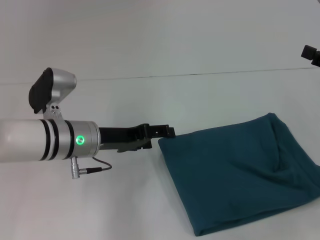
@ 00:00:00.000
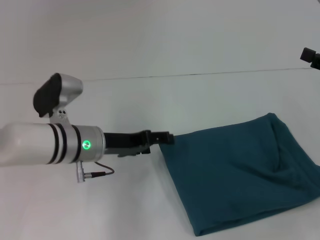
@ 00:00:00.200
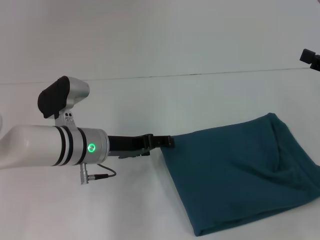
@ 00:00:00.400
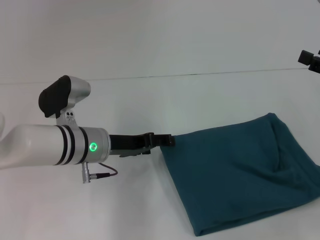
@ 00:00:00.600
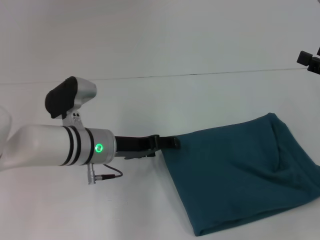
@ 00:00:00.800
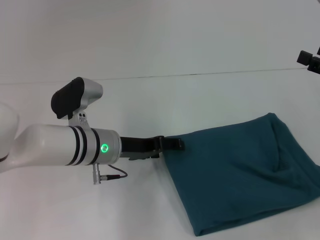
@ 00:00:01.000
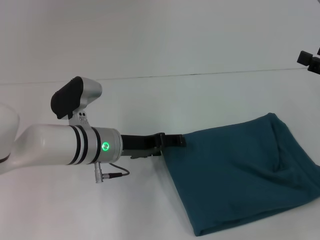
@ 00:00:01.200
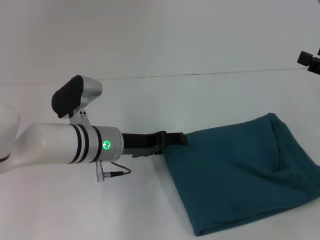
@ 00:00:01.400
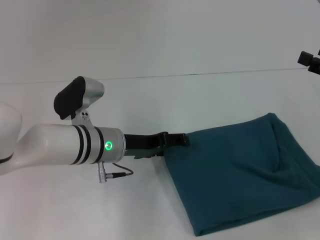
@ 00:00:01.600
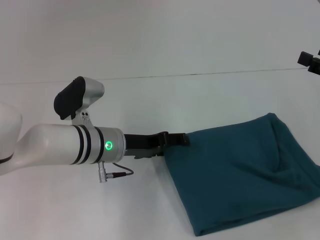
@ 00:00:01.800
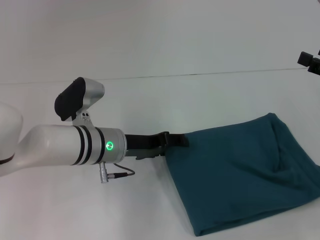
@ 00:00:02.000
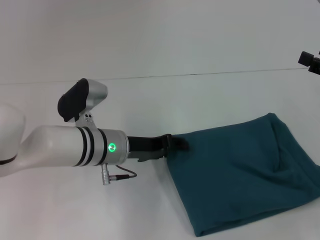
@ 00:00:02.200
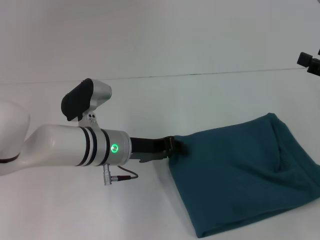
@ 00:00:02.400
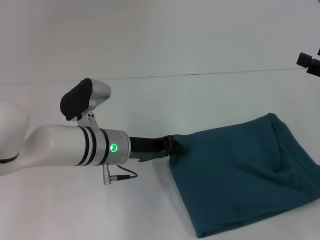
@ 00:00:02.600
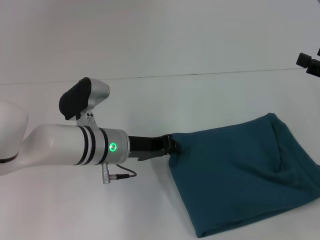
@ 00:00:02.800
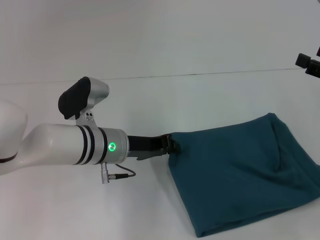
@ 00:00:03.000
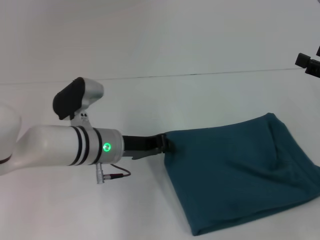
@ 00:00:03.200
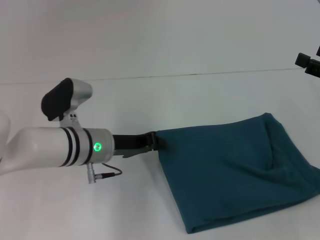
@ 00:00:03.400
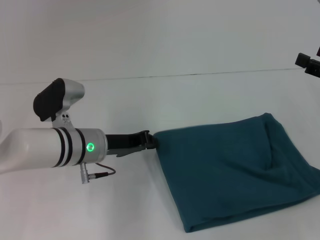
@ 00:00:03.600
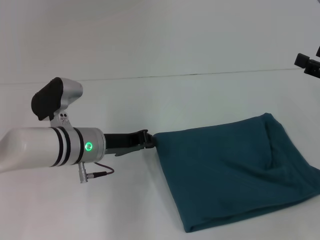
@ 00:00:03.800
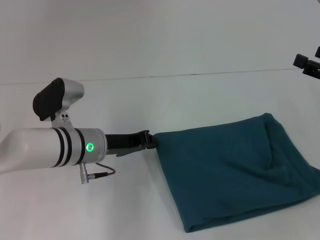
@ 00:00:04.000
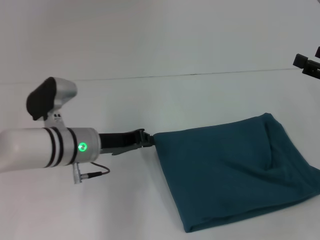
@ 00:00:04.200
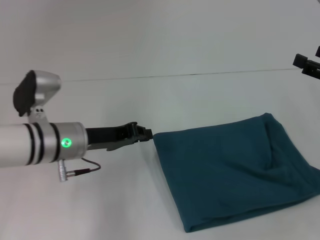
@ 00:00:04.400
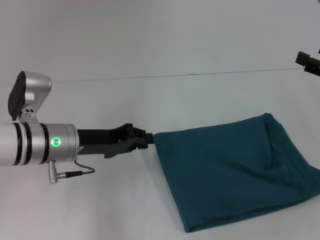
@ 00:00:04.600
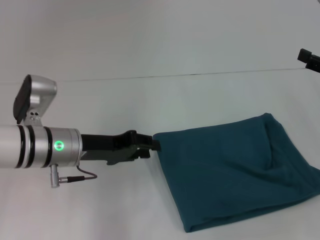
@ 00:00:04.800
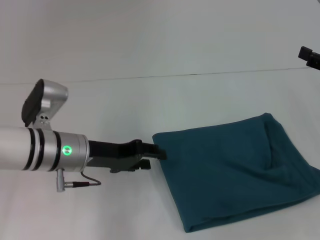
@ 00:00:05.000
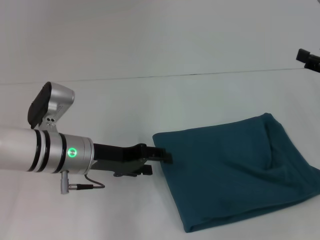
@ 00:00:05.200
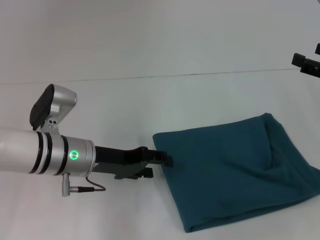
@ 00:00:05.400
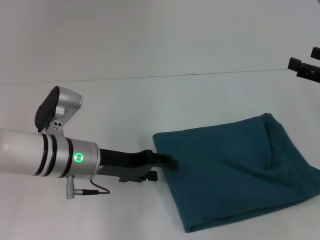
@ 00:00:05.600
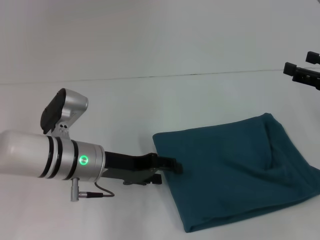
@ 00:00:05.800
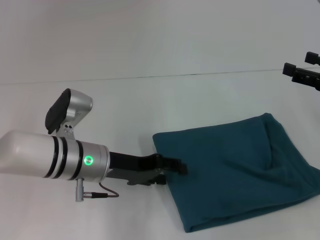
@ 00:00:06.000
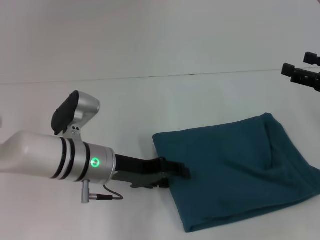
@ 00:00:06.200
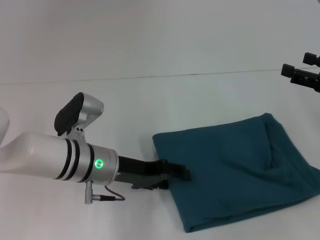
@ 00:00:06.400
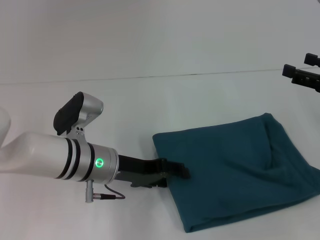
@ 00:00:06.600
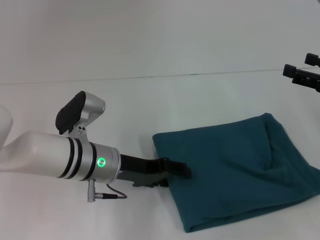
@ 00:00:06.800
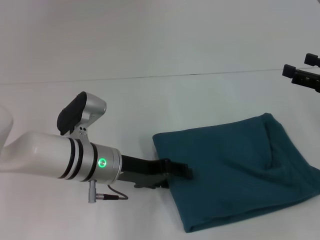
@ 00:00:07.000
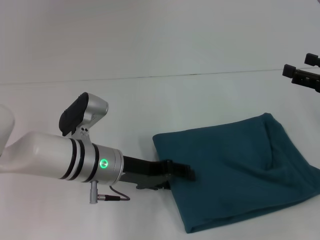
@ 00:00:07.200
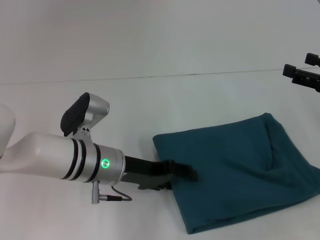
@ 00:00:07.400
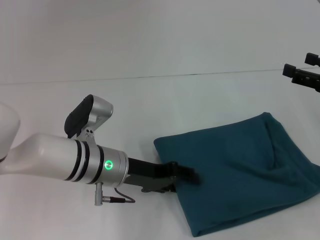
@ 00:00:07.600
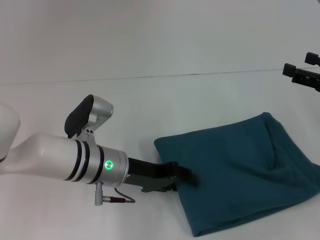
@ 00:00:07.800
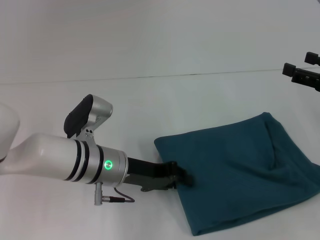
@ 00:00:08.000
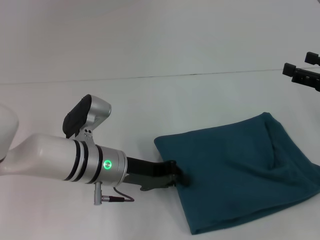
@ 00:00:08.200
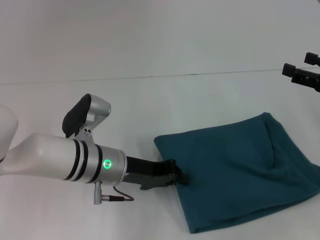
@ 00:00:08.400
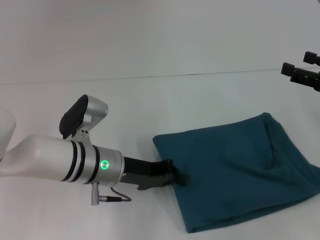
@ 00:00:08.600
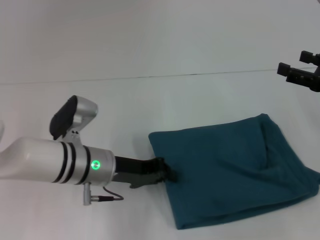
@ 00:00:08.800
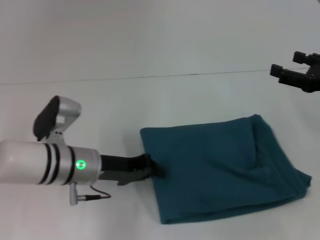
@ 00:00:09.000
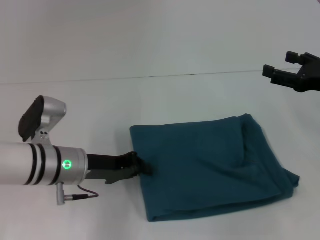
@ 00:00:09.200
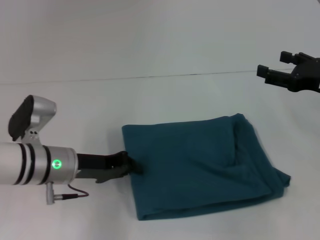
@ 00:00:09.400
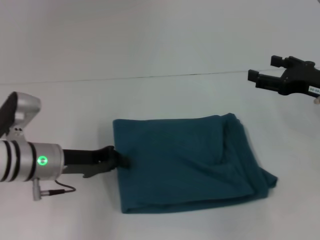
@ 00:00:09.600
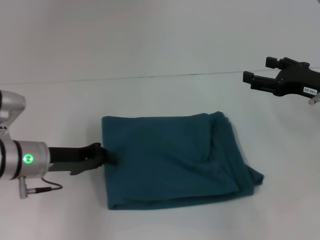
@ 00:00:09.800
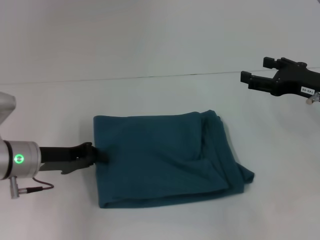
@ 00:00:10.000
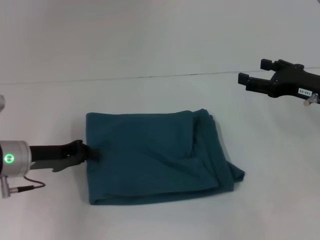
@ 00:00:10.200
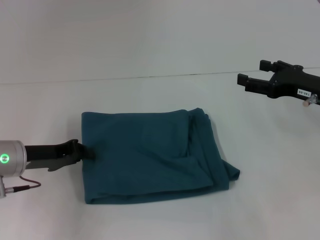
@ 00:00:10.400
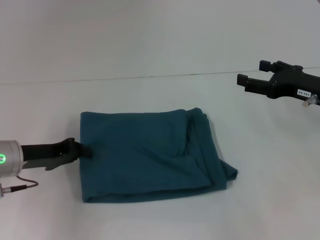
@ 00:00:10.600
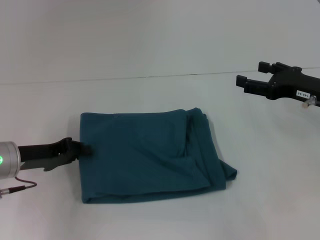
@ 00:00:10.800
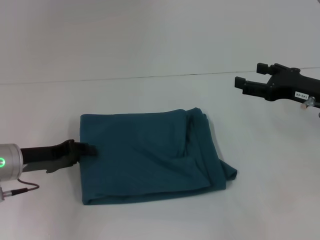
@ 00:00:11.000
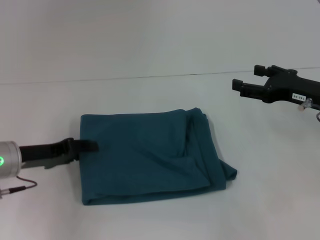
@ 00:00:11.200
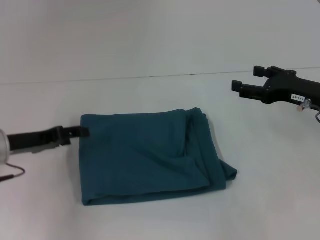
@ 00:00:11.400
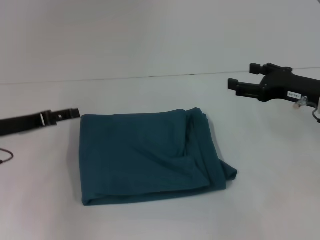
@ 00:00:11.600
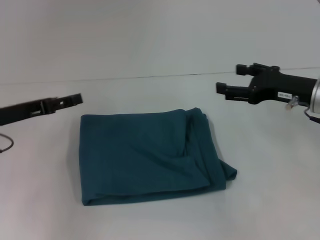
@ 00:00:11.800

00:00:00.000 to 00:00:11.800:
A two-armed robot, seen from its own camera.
00:00:00.000 to 00:00:01.400: The grippers make only small movements.
00:00:01.400 to 00:00:03.000: The left gripper closes its fingers.
00:00:03.000 to 00:00:04.400: The left gripper moves to the left, about 5 cm.
00:00:04.400 to 00:00:06.000: The left gripper opens its fingers.
00:00:06.000 to 00:00:07.400: The grippers stay close to where they were, moving slightly.
00:00:07.400 to 00:00:08.800: The left gripper closes up.
00:00:08.800 to 00:00:10.400: The left gripper heads to the left, covering about 15 cm; the right gripper heads to the left, covering some 5 cm.
00:00:10.400 to 00:00:11.800: The left gripper changes place by roughly 5 cm, and opens its fingers.

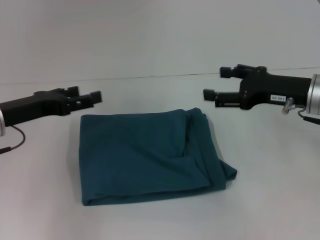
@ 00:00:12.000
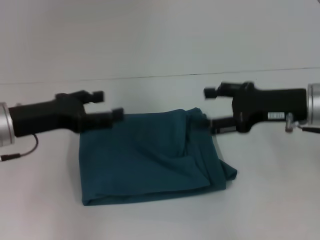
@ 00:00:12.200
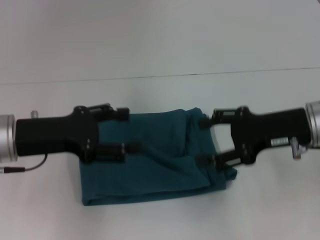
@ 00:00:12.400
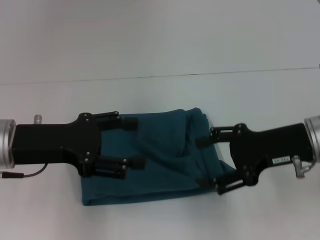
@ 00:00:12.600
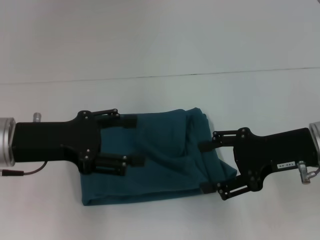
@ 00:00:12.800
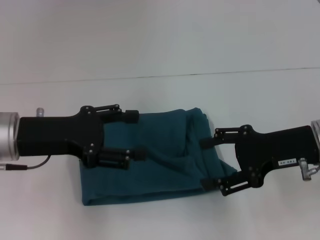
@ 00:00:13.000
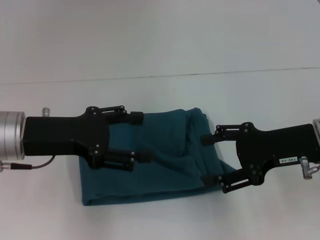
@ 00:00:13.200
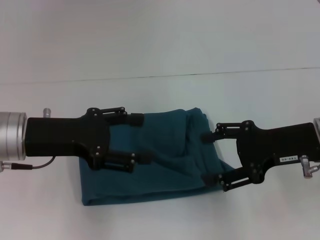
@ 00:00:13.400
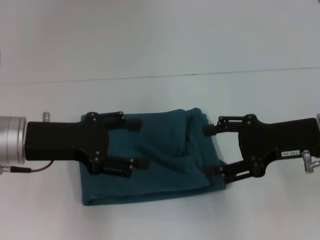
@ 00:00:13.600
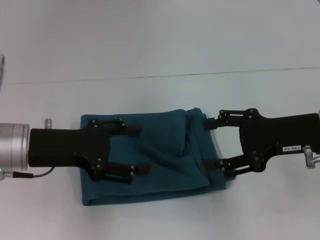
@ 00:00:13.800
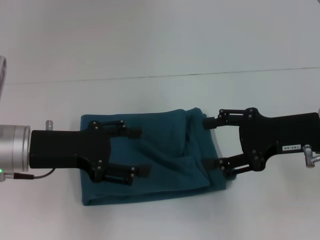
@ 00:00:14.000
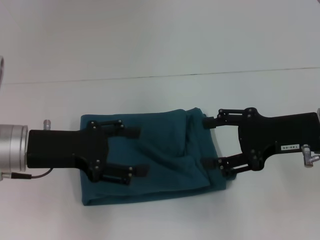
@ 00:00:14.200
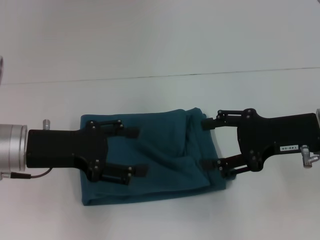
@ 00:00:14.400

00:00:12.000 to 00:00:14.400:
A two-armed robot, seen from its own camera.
00:00:12.000 to 00:00:13.200: The left gripper changes place by about 5 cm. The right gripper goes about 5 cm backward.
00:00:13.200 to 00:00:14.400: The grippers stay close to where they were, moving slightly.
